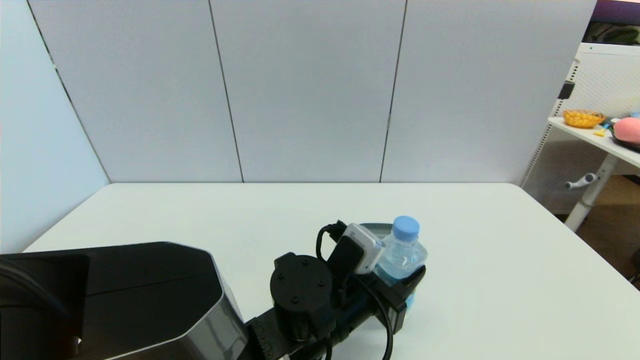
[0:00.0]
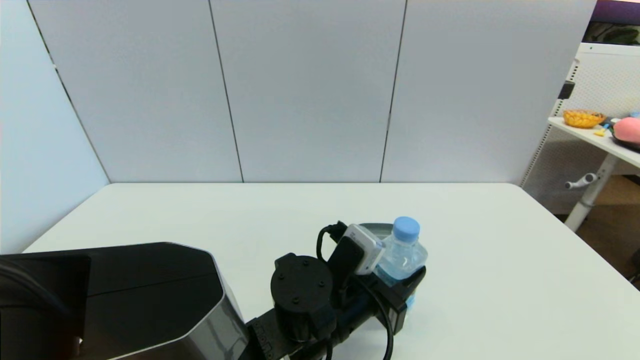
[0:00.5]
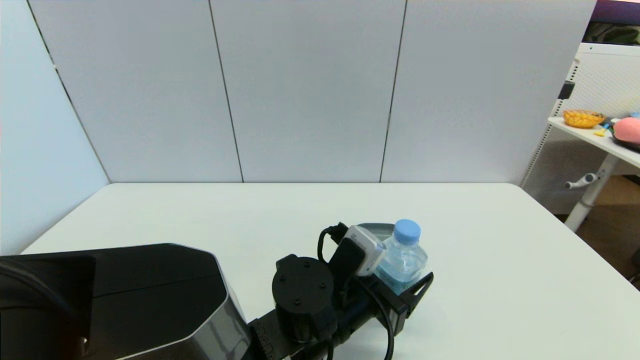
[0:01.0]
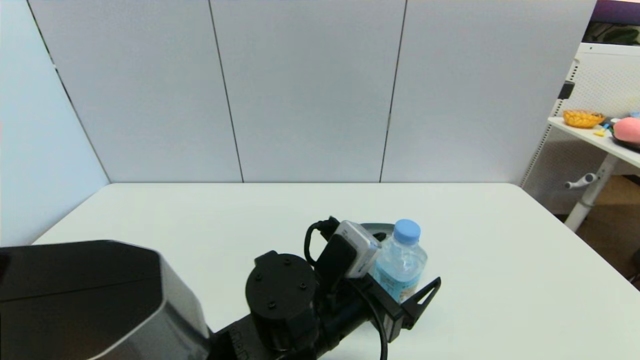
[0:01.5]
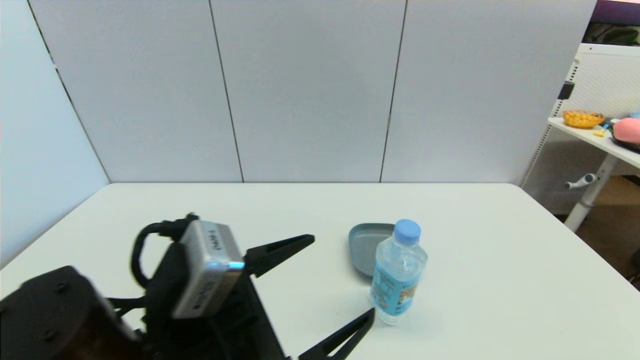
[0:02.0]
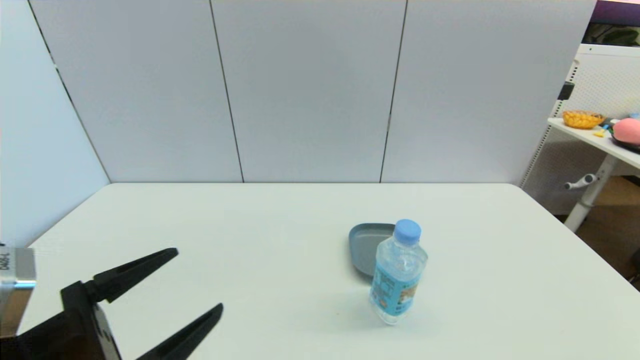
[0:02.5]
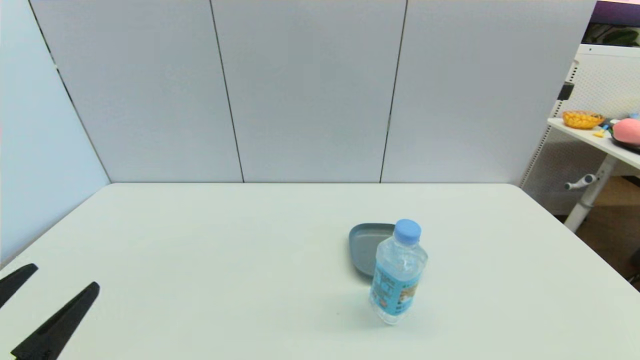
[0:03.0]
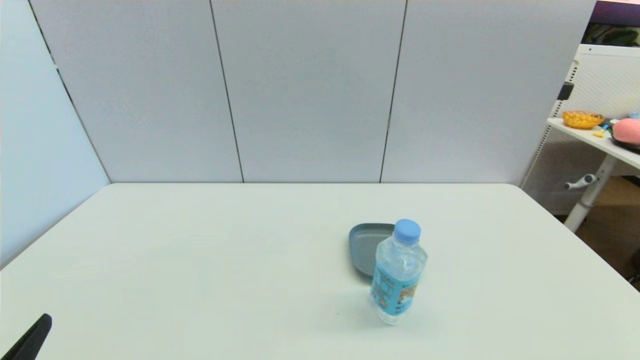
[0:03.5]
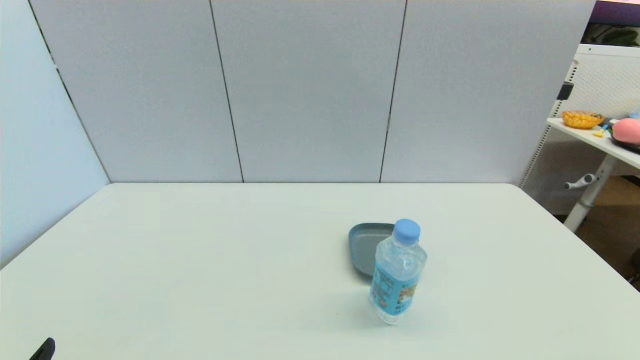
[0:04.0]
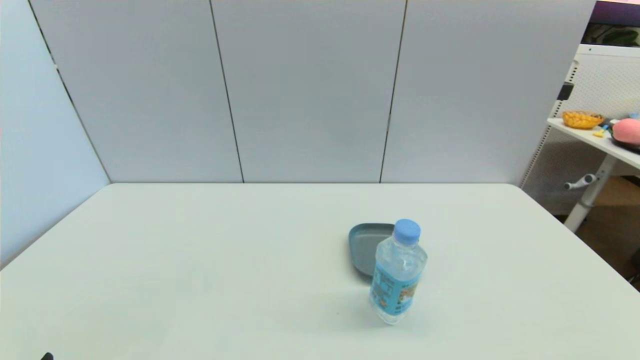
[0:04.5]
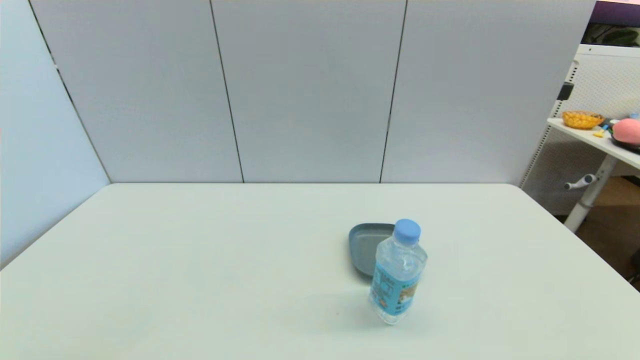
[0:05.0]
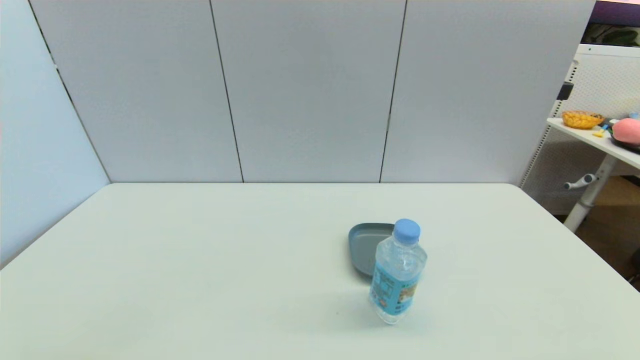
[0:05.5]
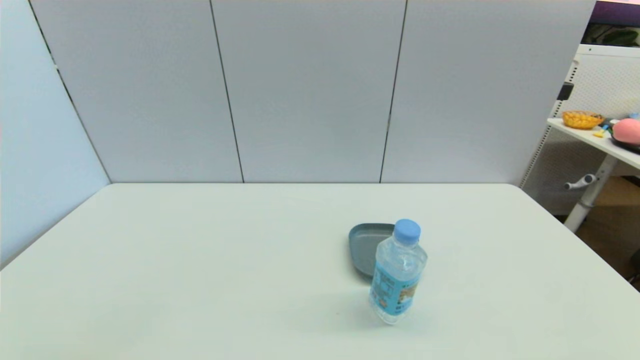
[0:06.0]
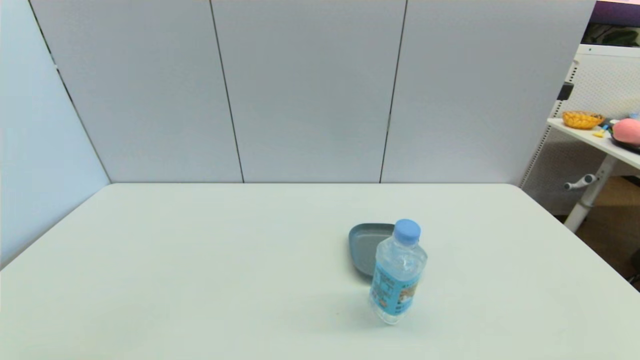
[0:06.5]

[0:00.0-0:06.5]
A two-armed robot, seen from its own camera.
0:00.0 to 0:02.0: The left gripper is displaced to the left, backward and upward by roughly 15 cm, and opens.
0:02.0 to 0:04.5: The left gripper goes about 20 cm to the left and backward.
